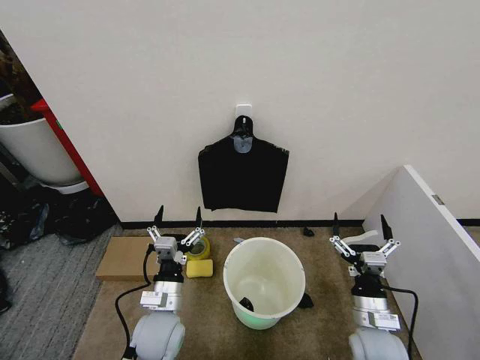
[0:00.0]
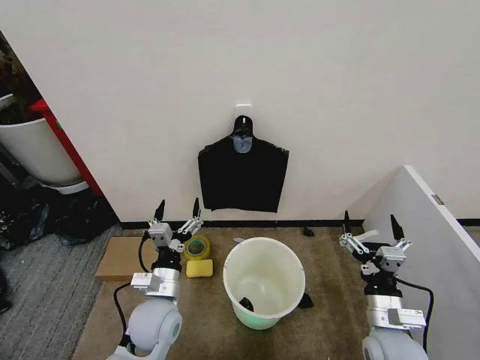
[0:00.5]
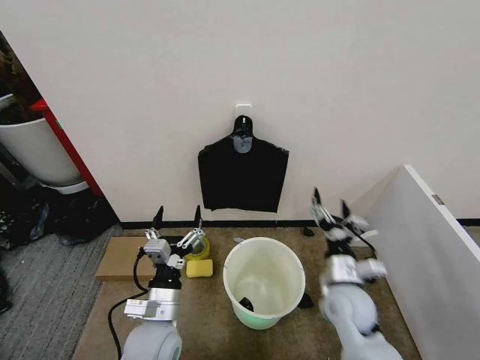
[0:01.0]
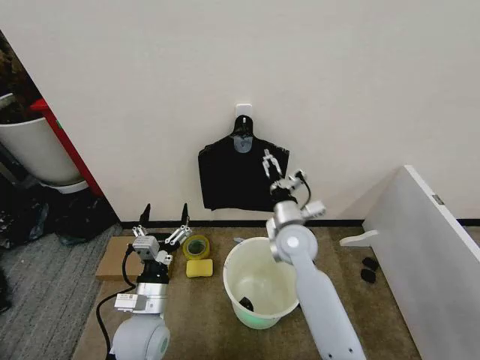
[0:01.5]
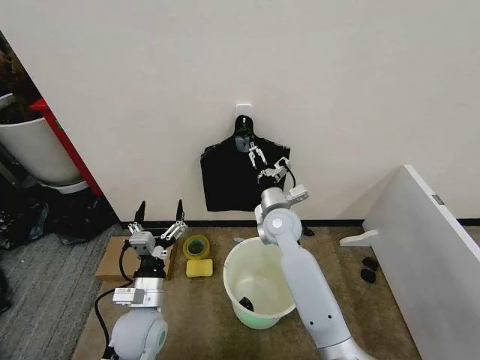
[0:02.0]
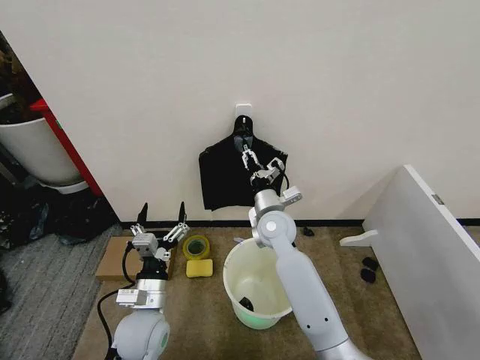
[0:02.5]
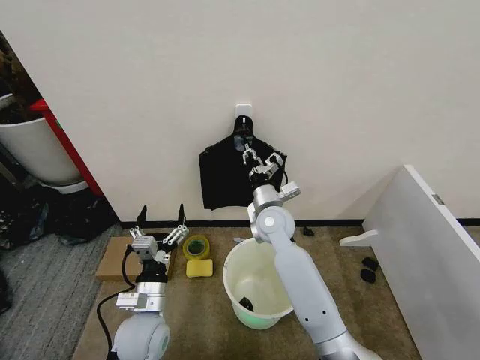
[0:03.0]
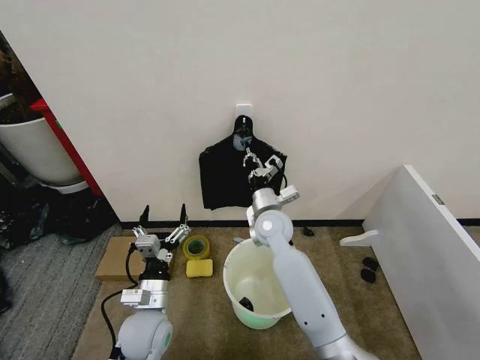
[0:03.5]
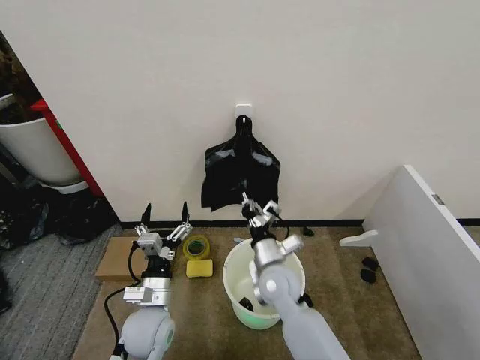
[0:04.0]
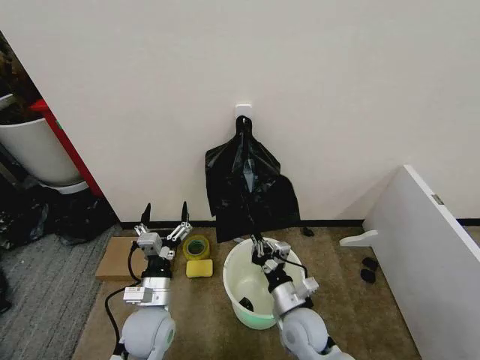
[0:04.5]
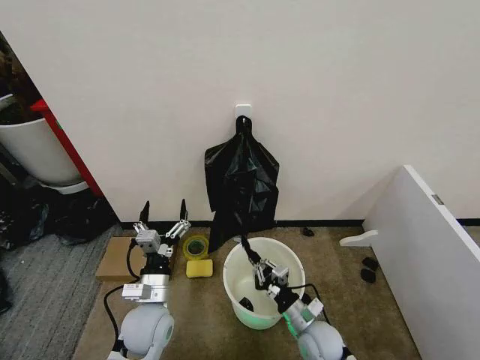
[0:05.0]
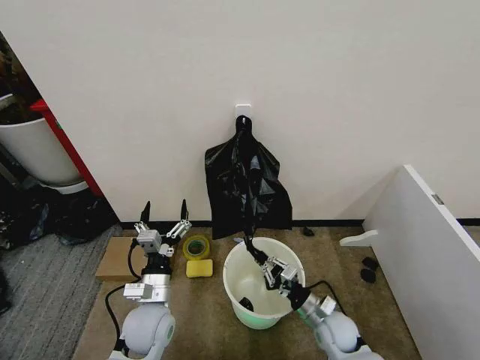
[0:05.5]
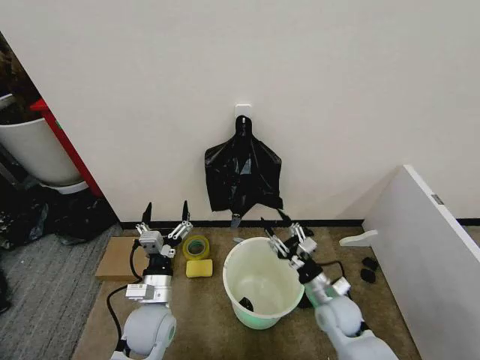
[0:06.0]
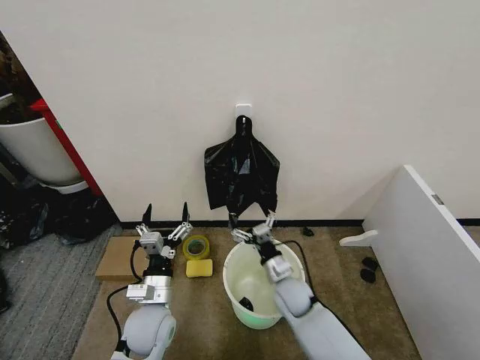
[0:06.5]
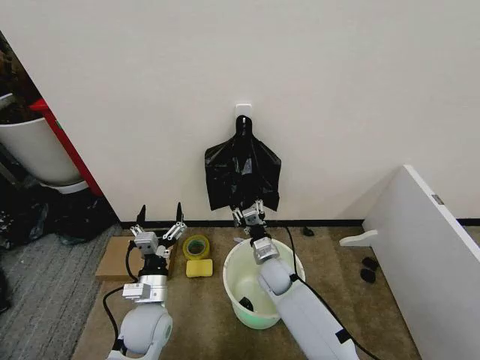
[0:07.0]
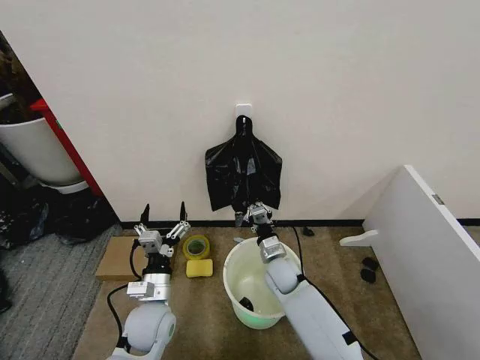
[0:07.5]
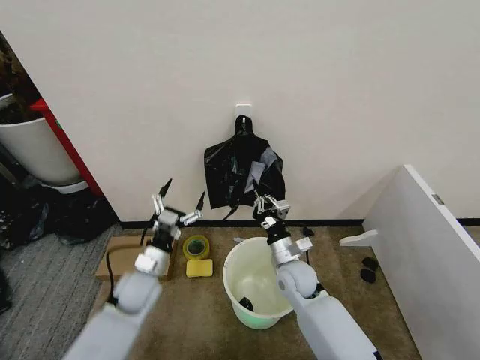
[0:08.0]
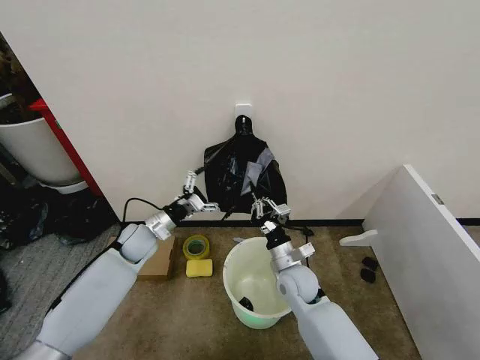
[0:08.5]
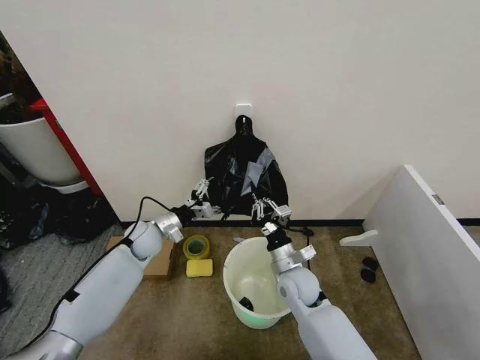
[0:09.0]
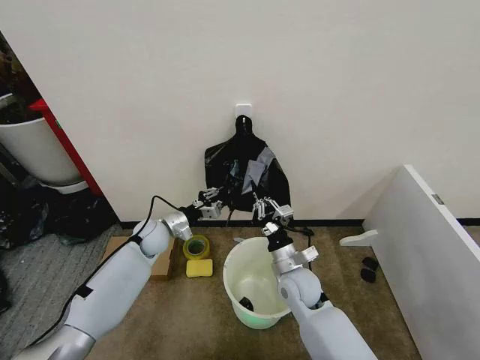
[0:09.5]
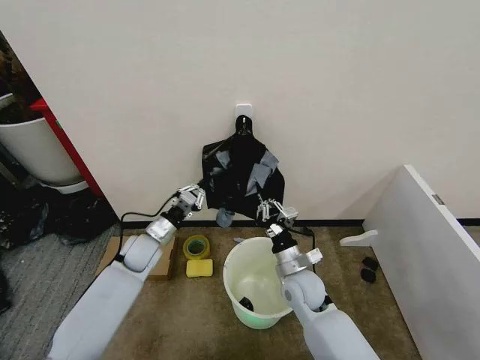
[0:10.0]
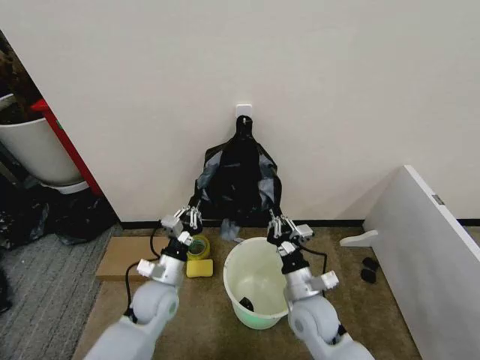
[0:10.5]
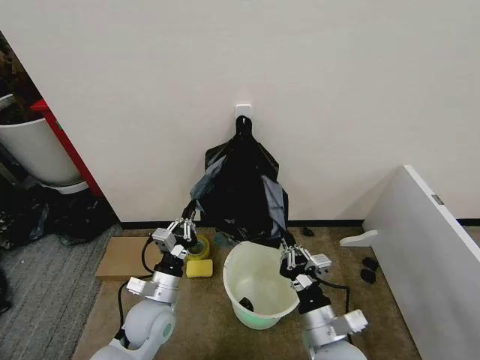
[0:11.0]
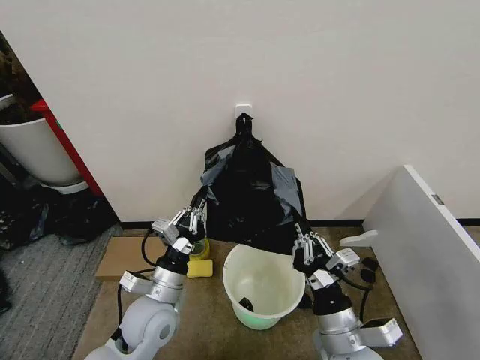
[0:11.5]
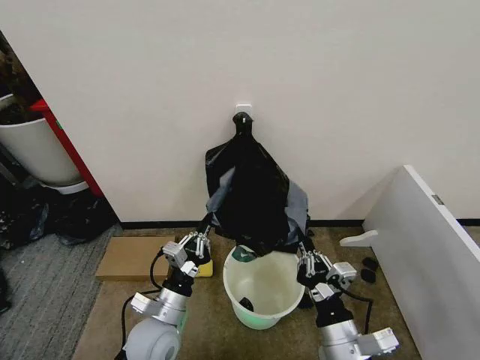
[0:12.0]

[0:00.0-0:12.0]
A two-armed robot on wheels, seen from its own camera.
Task of the whole recording: Place the garbage bag over the trash bin.
0:02.0 to 0:04.0: The right gripper heads backward and downward, covering about 10 cm, and closes its fingers.
0:04.0 to 0:06.0: The right gripper travels to the right and downward by about 20 cm, and opens its fingers.
0:06.0 to 0:08.0: The left gripper travels forward by about 5 cm. The right gripper goes approximately 15 cm to the left and forward, and closes.
0:08.0 to 0:10.0: The left gripper travels forward by about 10 cm, and closes.
0:10.0 to 0:12.0: The right gripper goes some 20 cm backward; the left gripper goes approximately 20 cm backward and to the right.

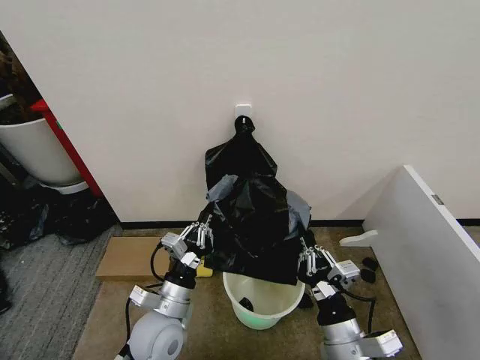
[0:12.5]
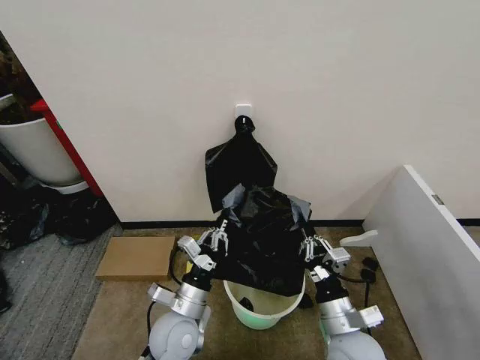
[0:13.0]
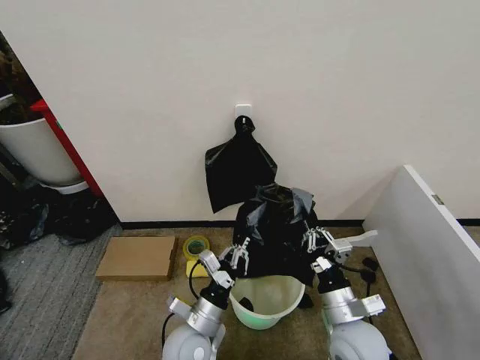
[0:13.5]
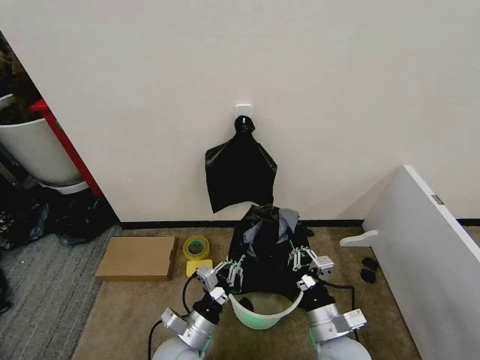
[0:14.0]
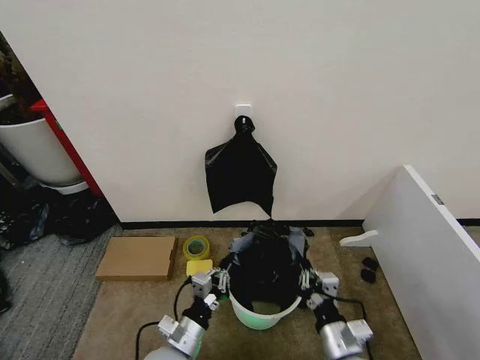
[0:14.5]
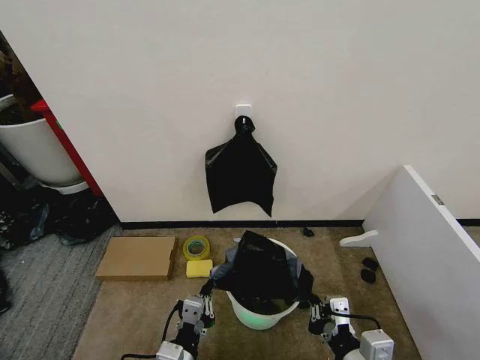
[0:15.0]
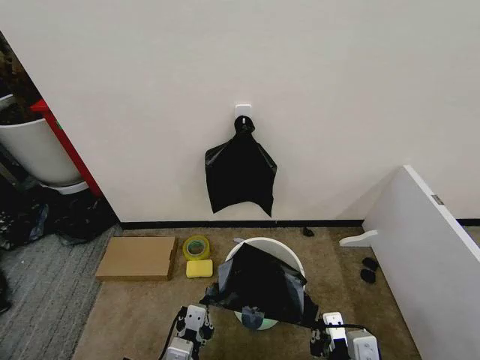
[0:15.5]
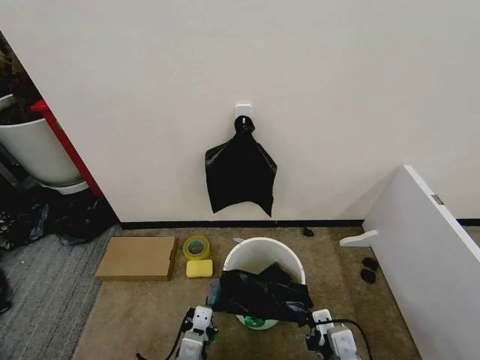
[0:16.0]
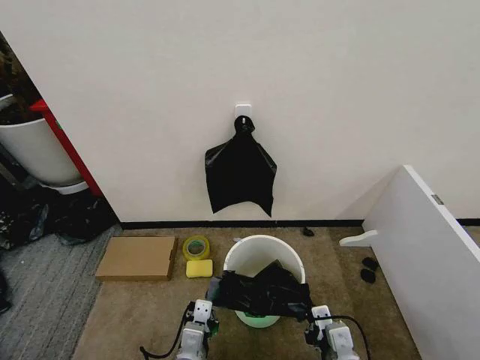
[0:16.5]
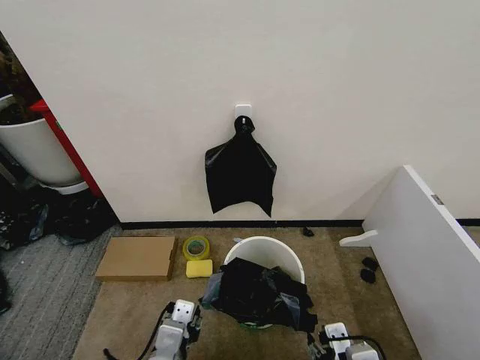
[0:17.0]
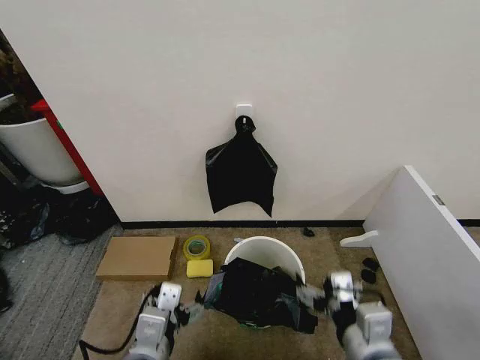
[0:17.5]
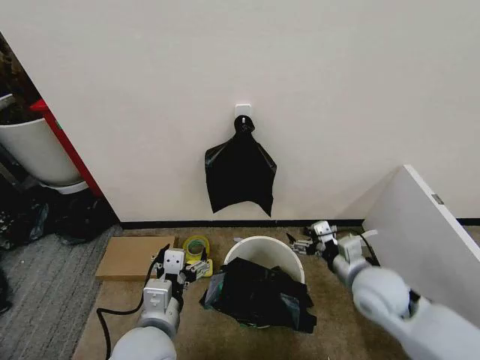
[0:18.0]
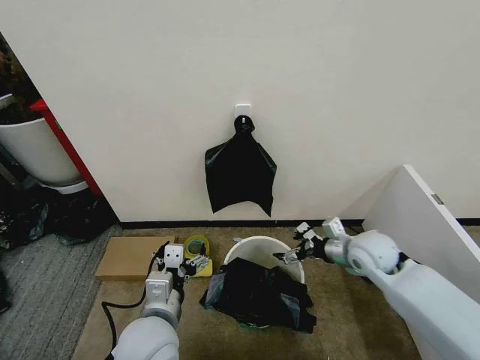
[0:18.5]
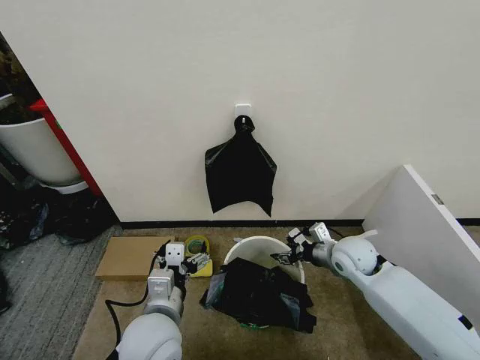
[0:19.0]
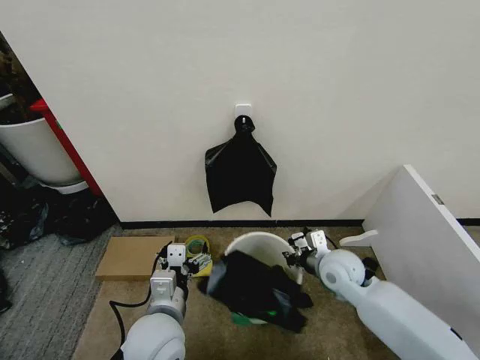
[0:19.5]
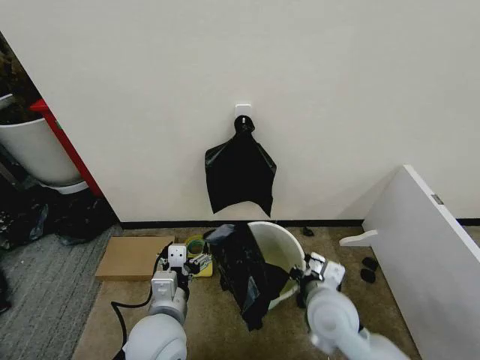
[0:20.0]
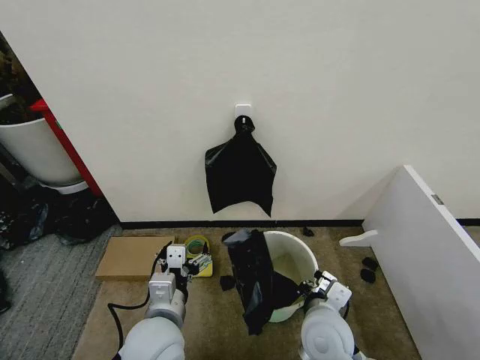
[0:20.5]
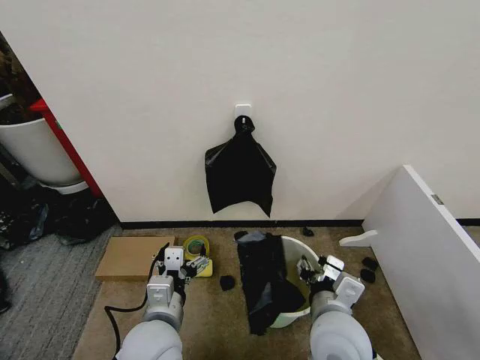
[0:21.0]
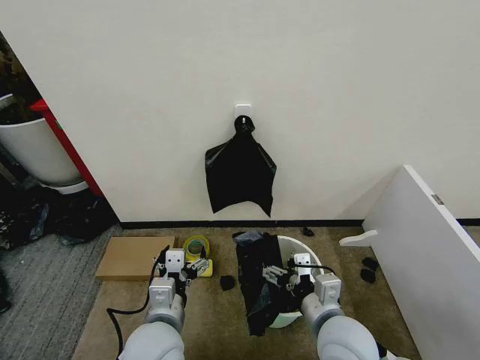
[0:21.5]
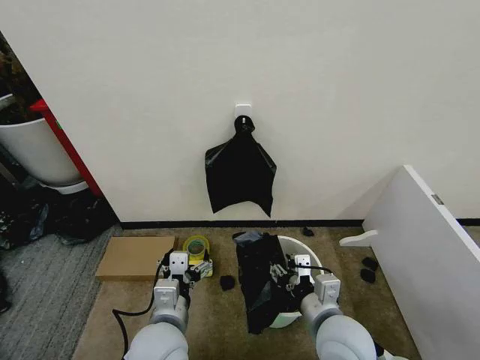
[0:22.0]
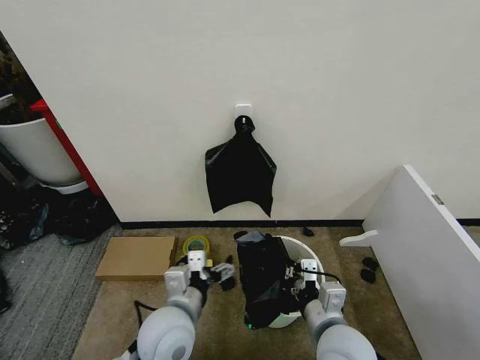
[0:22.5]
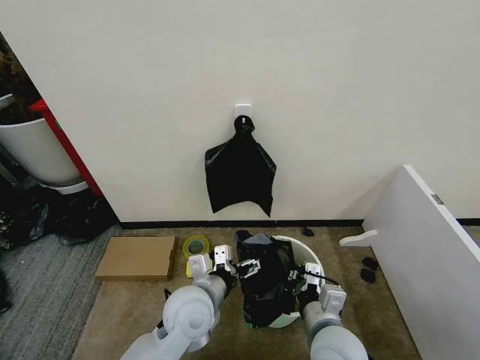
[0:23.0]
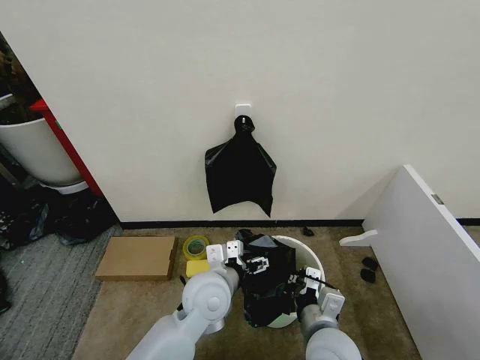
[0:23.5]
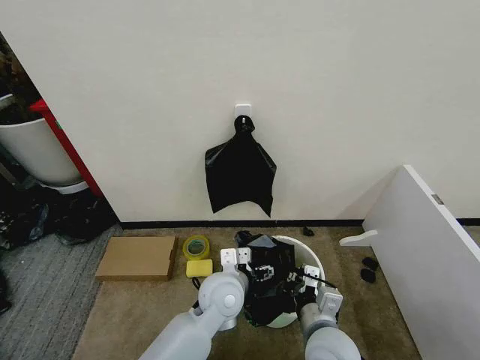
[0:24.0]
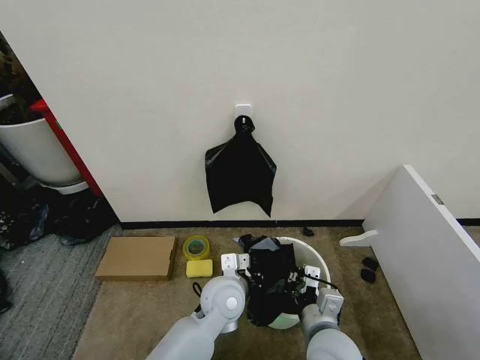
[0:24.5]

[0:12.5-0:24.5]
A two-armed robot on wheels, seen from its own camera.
Task of the whole recording: Place the garbage bag over the trash bin.
0:12.5 to 0:14.5: Both grippers travel together downward, approximately 5 cm.
0:14.5 to 0:16.5: The left gripper ends up approximately 5 cm from where it was.
0:16.5 to 0:18.5: The right gripper travels forward by some 25 cm, and opens up. The left gripper travels upward and forward by roughly 10 cm, and opens up.
0:18.5 to 0:20.5: The right gripper moves backward and to the left, roughly 20 cm, and closes its fingers.
0:20.5 to 0:22.5: The right gripper opens, then closes again.
0:22.5 to 0:24.5: The left gripper shifts approximately 10 cm to the right and forward, and closes.

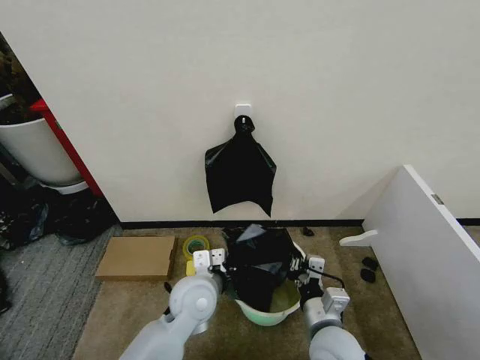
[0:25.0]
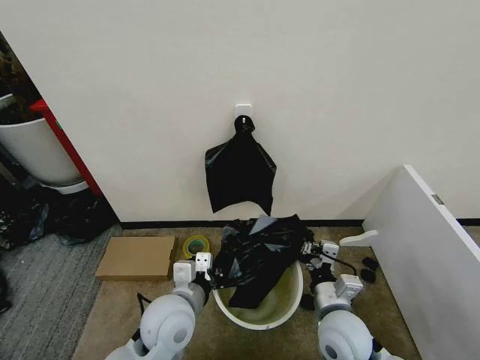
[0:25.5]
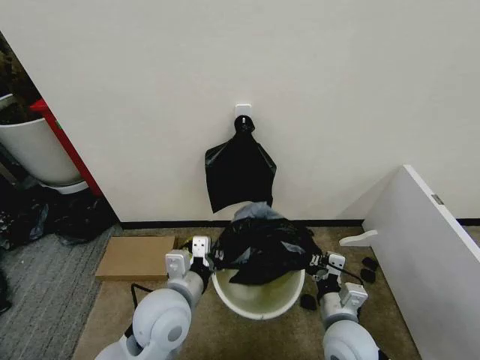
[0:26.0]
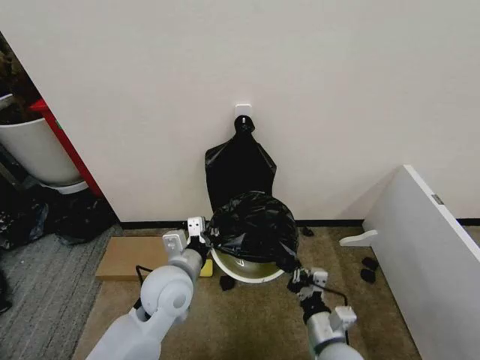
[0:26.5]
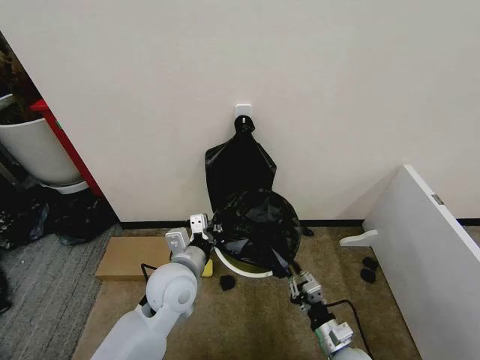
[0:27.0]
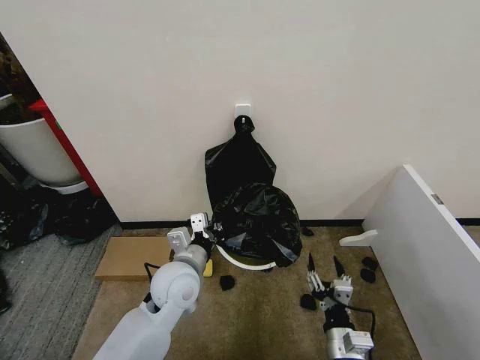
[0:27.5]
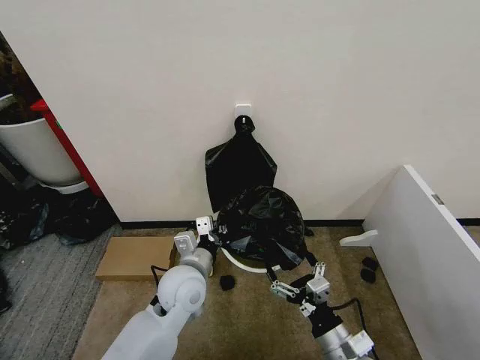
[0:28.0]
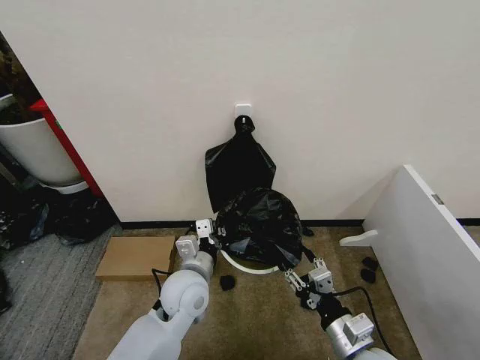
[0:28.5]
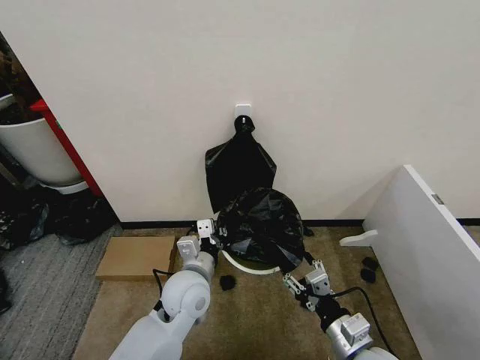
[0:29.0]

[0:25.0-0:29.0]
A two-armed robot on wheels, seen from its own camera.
Task of the whole recording: Place the garbage bag over the trash bin.
0:25.0 to 0:27.0: The left gripper changes place by about 5 cm. The right gripper shifts some 15 cm downward and to the right.
0:27.0 to 0:29.0: The right gripper shifts some 15 cm upward, and opens up.
